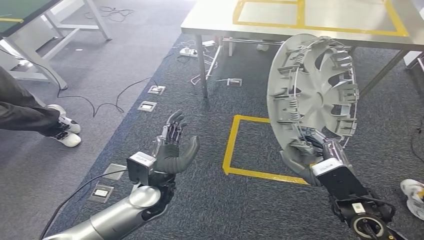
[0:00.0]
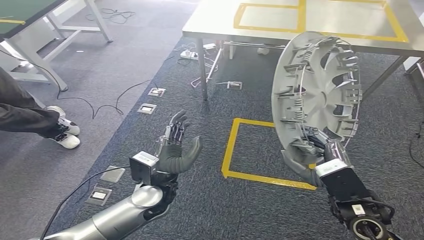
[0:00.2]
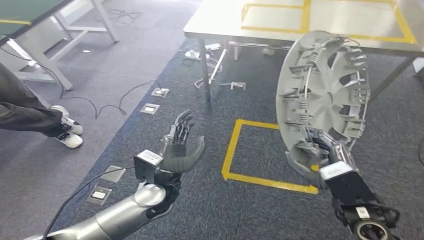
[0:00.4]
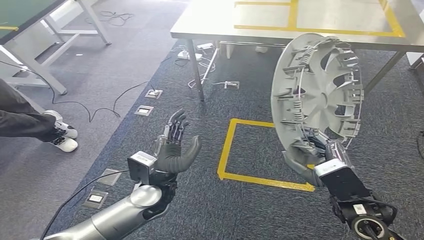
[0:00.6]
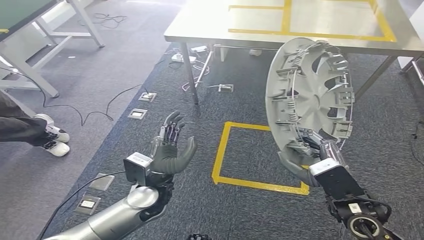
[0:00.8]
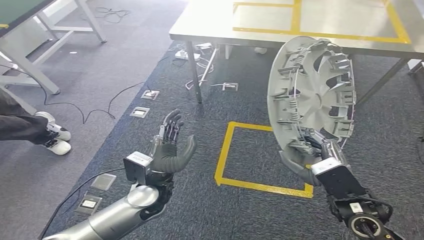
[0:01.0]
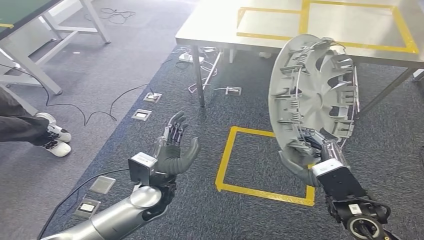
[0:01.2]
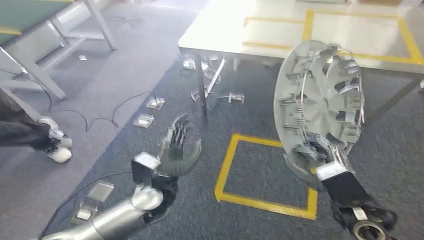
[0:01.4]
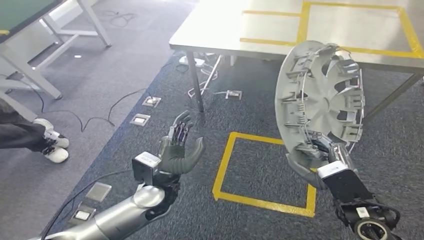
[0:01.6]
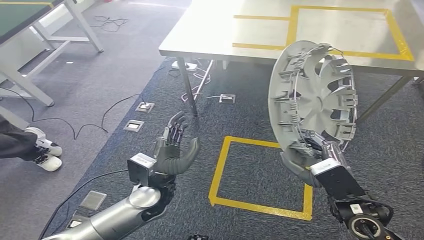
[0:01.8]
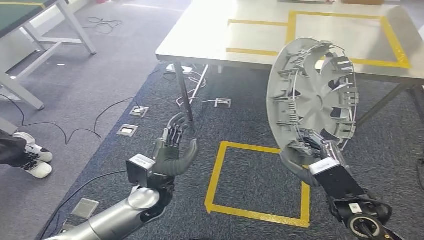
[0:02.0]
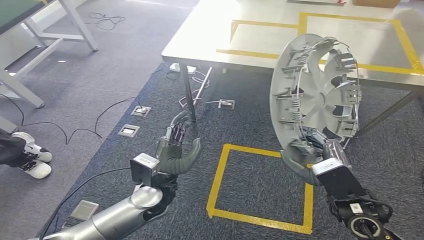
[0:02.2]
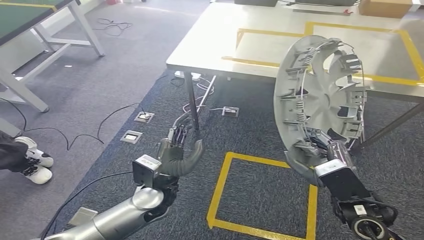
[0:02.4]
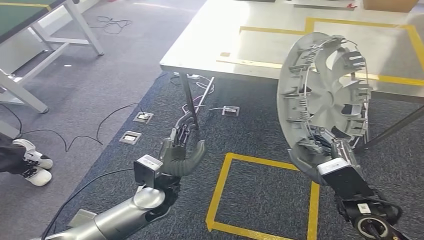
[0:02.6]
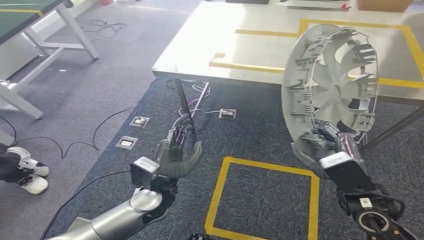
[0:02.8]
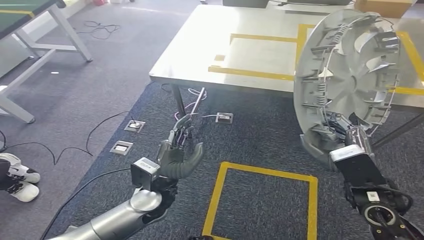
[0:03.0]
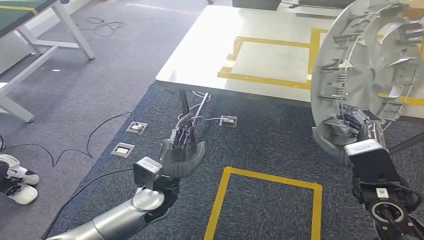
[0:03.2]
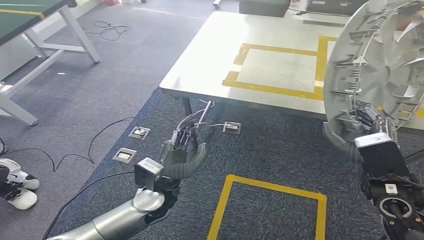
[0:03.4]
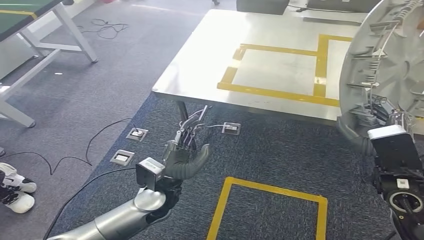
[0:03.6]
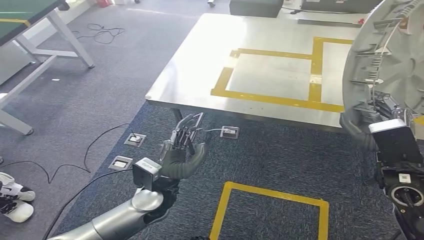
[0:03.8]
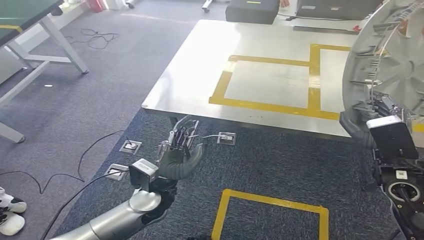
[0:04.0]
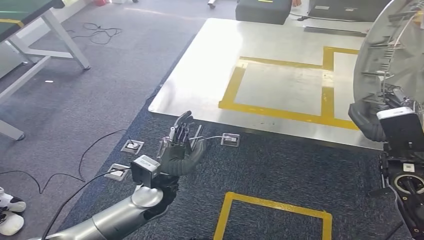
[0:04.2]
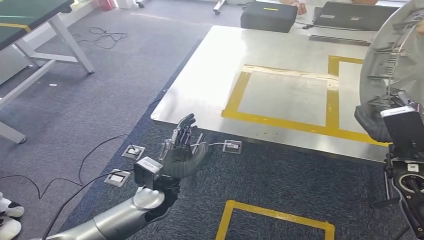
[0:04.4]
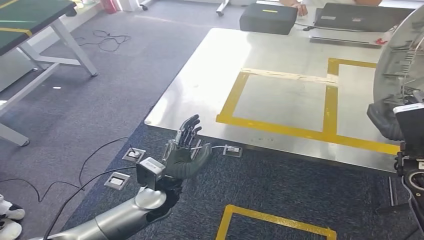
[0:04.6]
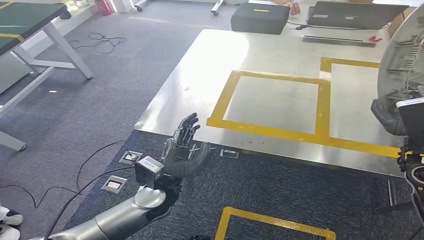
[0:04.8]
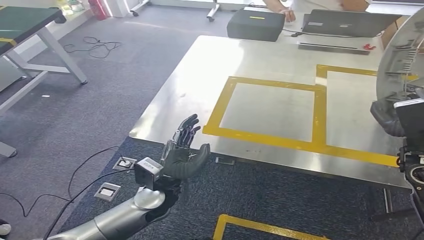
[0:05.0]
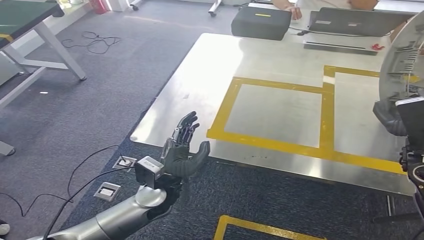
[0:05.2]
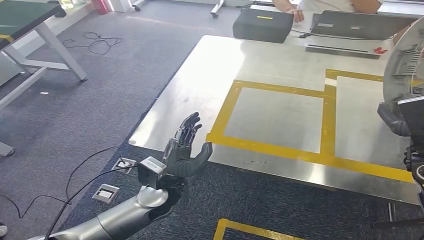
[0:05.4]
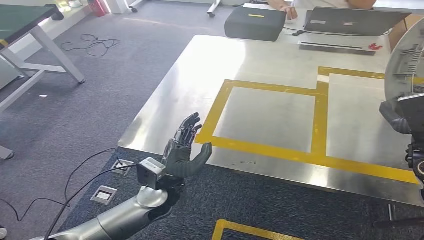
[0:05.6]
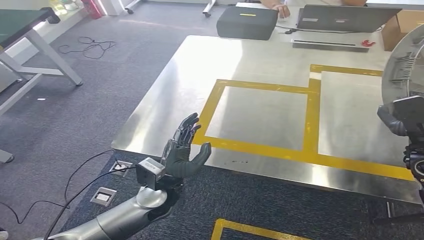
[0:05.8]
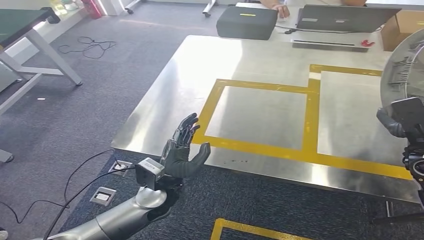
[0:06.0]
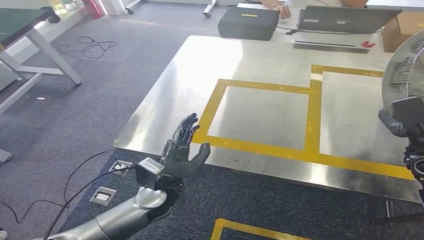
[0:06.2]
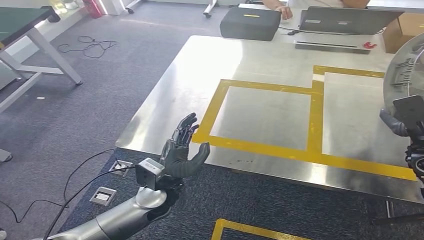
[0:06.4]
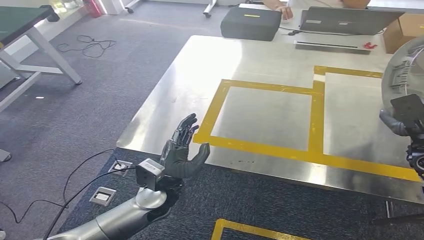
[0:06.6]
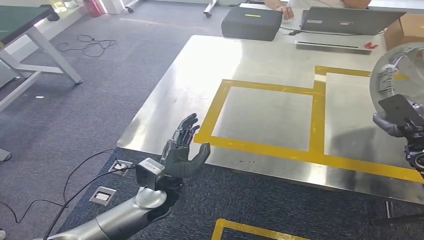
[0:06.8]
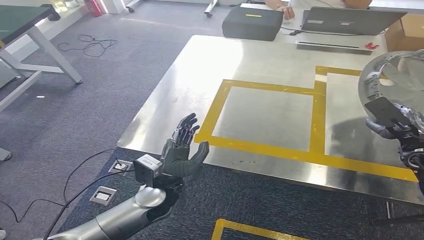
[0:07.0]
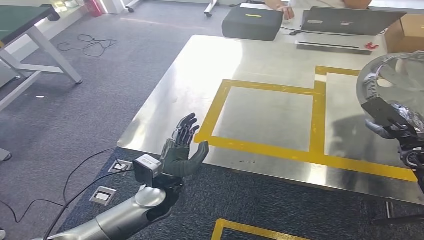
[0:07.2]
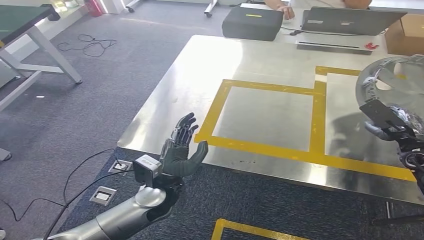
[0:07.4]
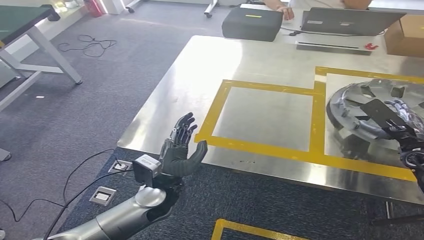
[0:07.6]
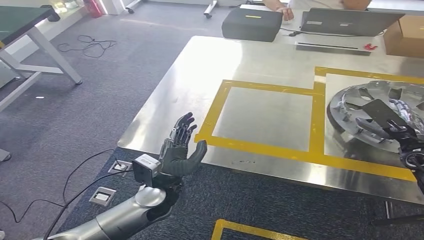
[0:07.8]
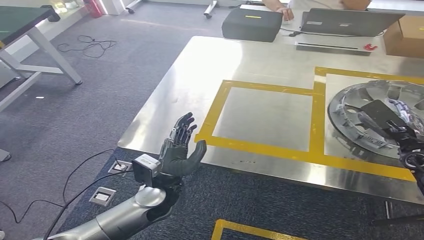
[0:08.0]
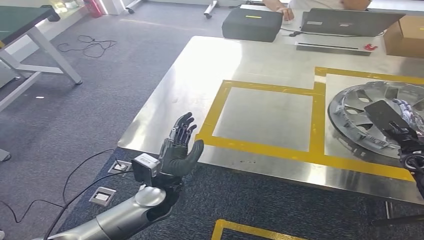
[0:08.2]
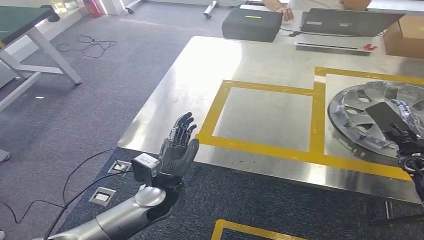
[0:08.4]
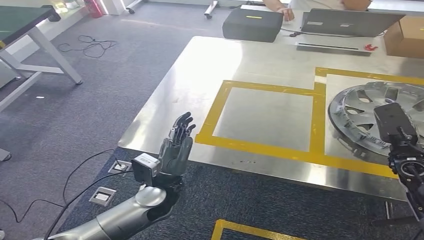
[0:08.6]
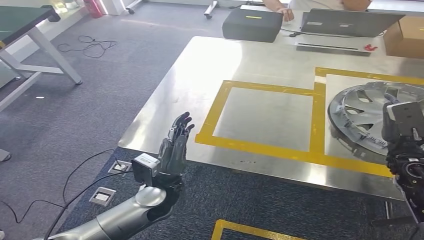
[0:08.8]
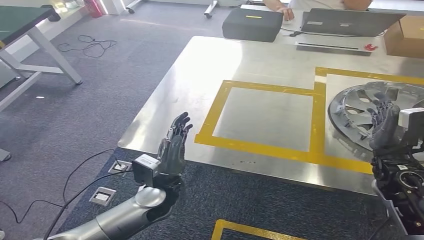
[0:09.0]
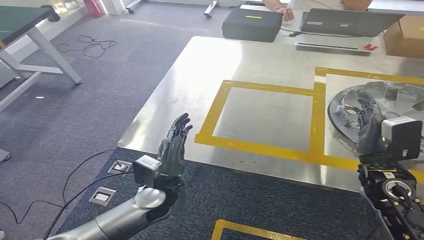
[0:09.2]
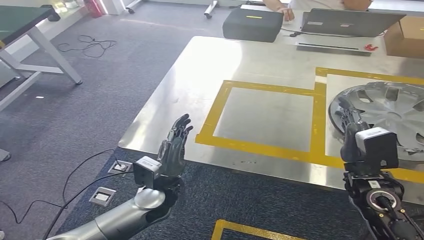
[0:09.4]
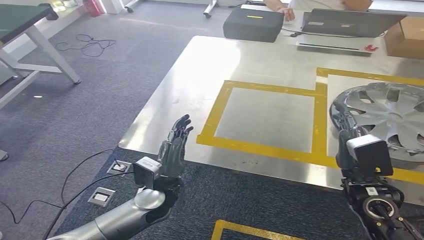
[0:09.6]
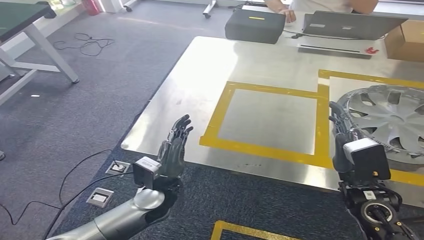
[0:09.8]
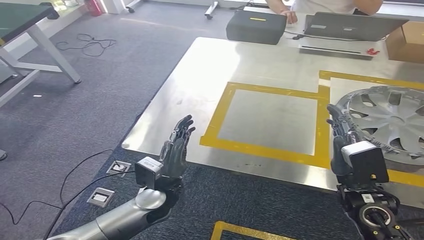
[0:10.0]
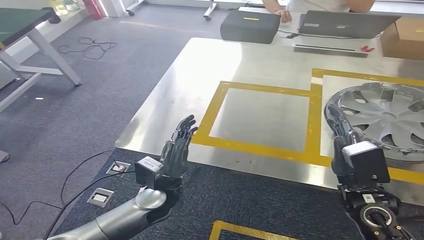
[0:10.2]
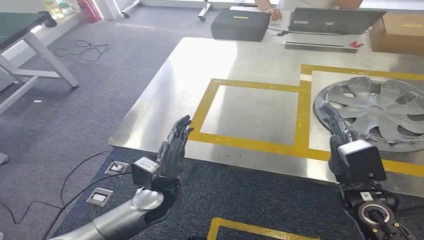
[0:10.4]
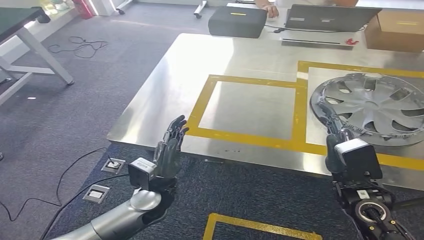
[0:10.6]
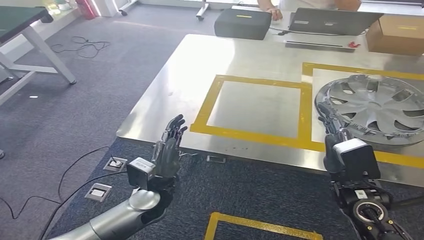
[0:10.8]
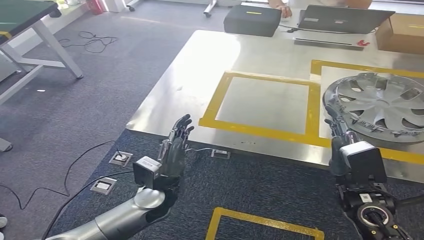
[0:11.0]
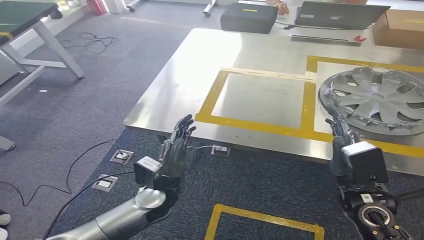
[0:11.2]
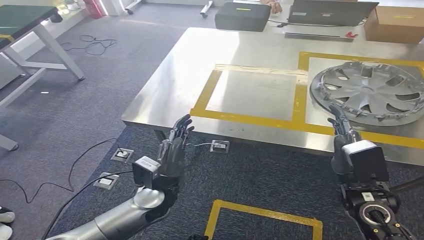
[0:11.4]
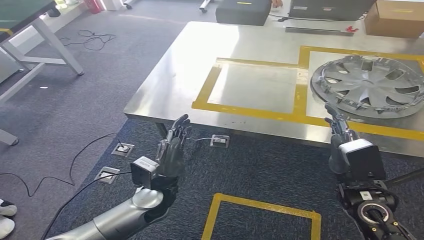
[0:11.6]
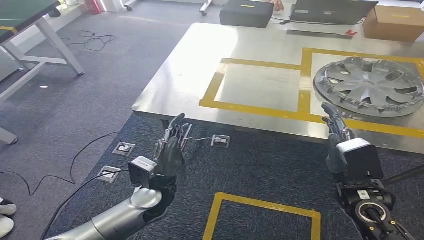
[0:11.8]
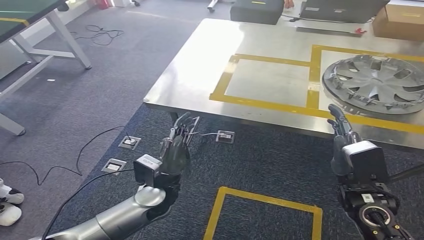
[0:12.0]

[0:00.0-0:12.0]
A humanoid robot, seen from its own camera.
Step, 0:00.0 to 0:03.2: Bring the small component to the front of the workbench.
Step, 0:03.6 to 0:11.8: Insert the small component into the corresponding slot on the workbench.
0:07.6 to 0:09.0: The right hand travels to the left and backward by about 10 cm.

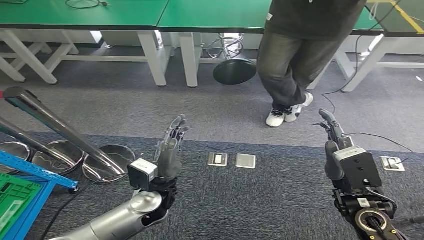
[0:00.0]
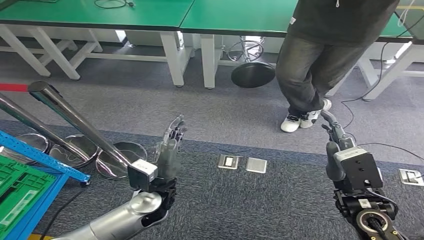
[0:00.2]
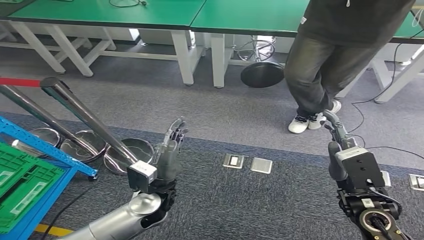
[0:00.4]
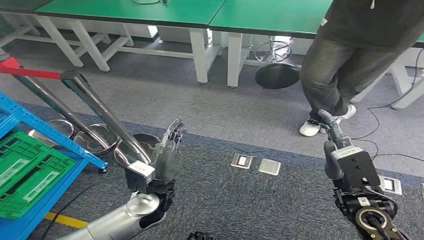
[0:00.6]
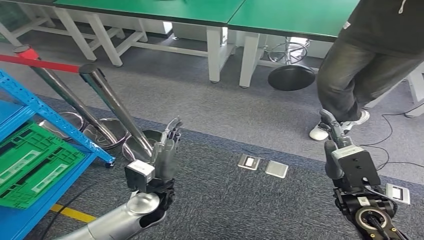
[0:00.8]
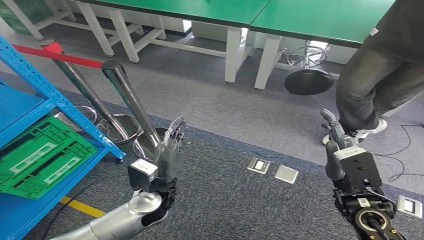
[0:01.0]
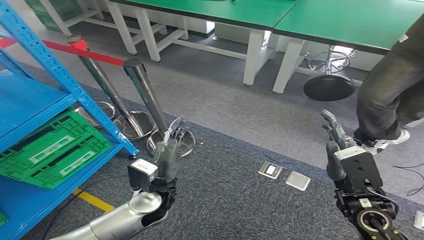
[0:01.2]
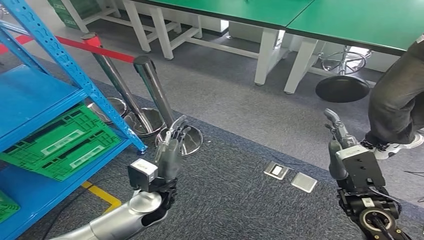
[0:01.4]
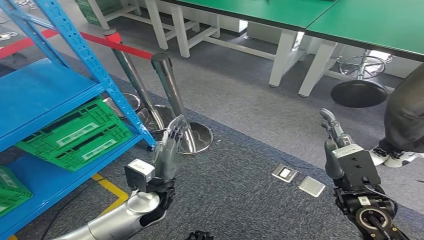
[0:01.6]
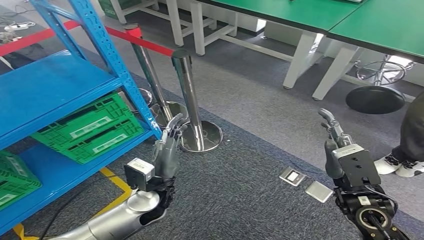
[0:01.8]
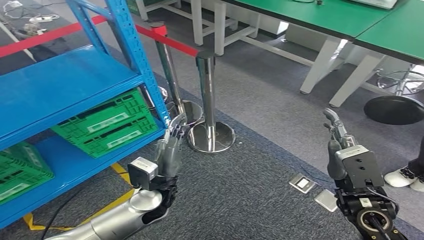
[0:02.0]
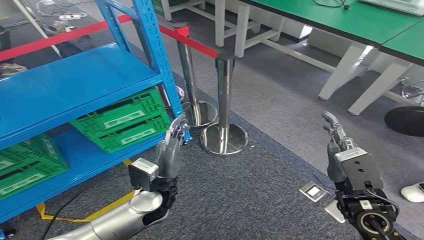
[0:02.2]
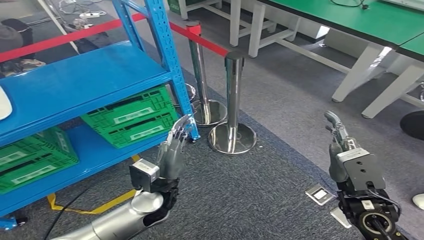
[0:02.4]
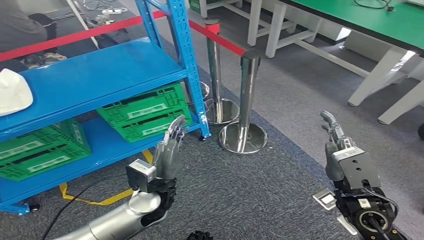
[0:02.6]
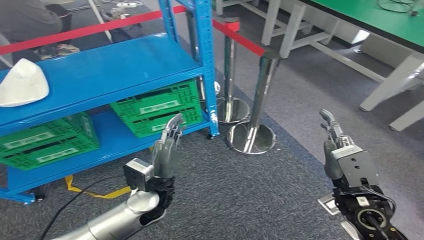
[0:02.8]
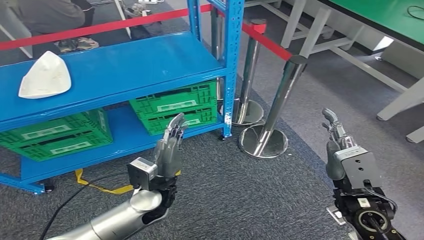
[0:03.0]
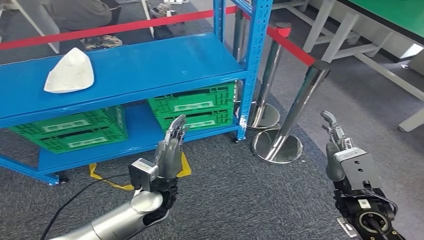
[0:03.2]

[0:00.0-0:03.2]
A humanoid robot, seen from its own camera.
Step, 0:00.0 to 0:03.2: Move to the initial position of the workbench.
